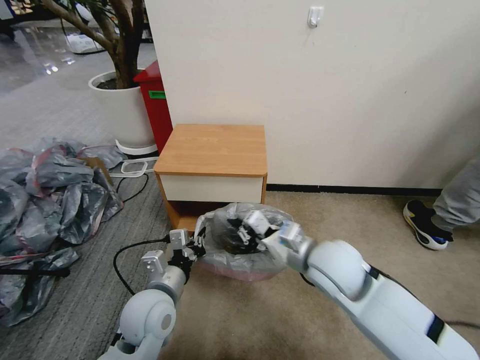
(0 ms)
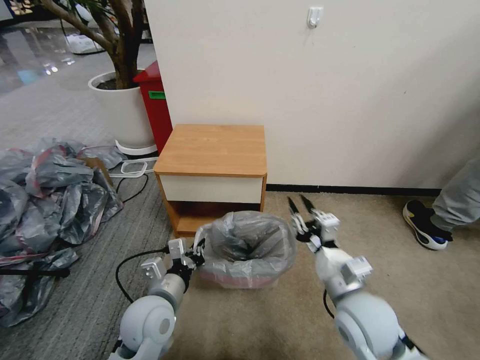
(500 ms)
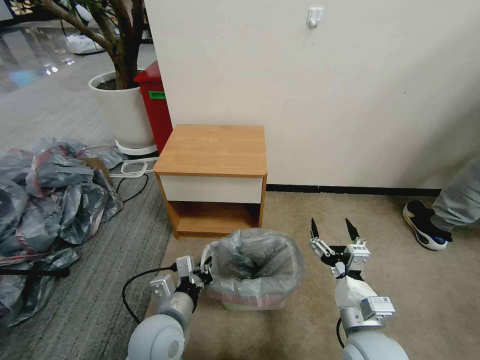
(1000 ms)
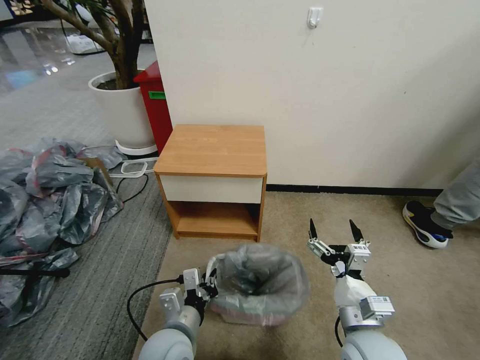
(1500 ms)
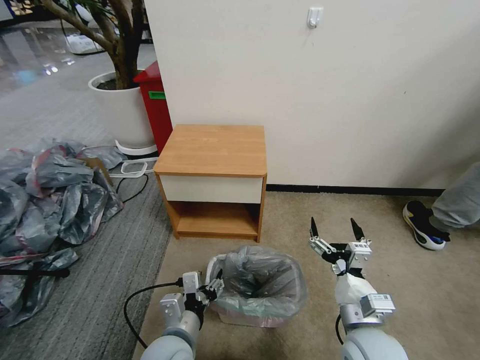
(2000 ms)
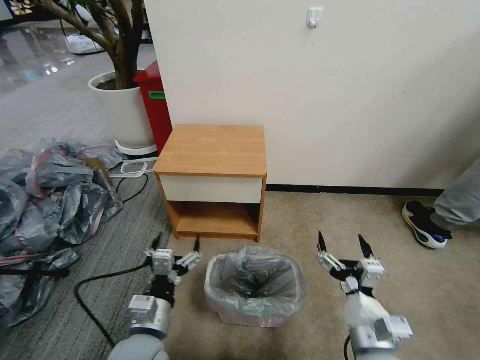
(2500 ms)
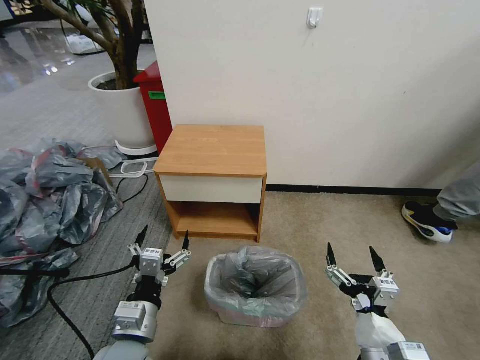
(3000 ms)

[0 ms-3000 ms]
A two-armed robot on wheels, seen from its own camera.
Task of the whole recording: Pick up the garbage bag from the table and place it over the trash can.
0 ms to 1500 ms: The right gripper moves backward, downward and to the right, about 15 cm, and opens up. The left gripper moves backward, about 5 cm.
1500 ms to 3000 ms: The right gripper shifts approximately 5 cm backward; the left gripper goes approximately 5 cm to the left, and opens.
